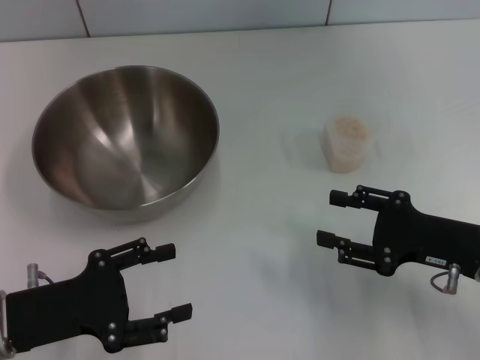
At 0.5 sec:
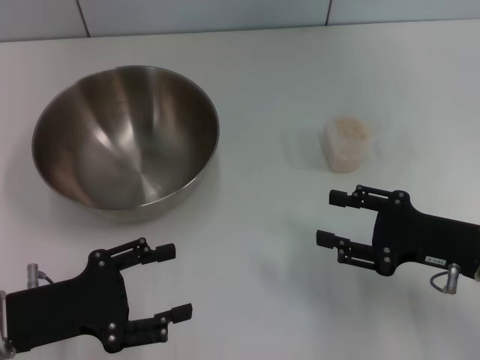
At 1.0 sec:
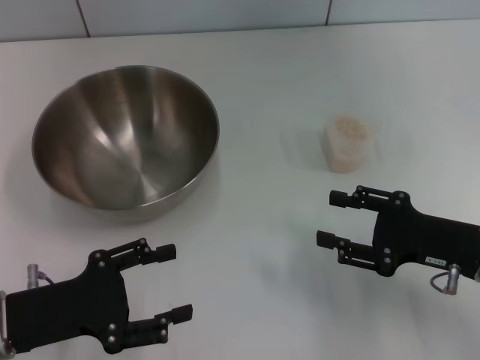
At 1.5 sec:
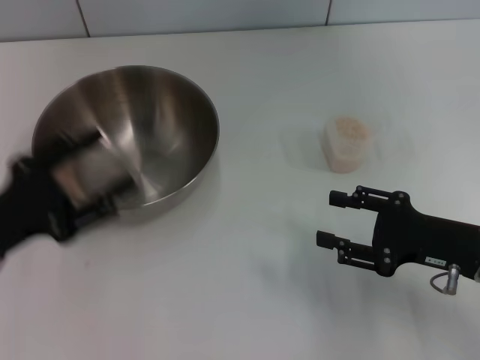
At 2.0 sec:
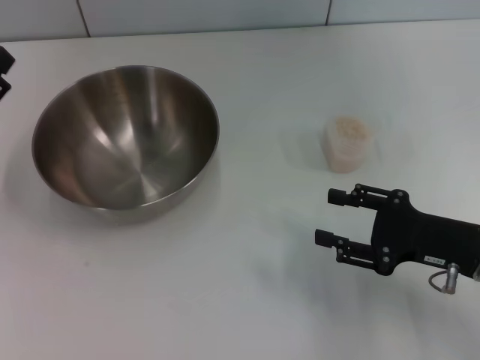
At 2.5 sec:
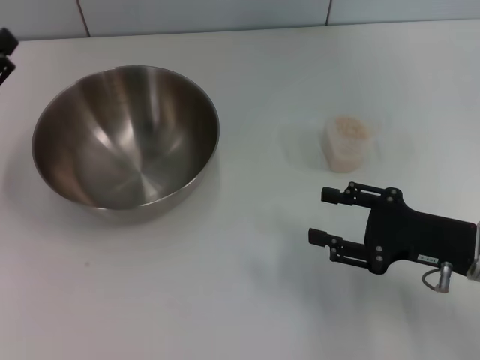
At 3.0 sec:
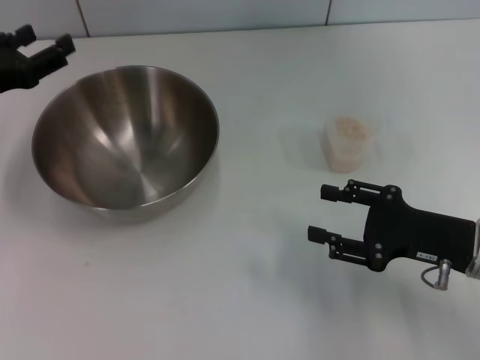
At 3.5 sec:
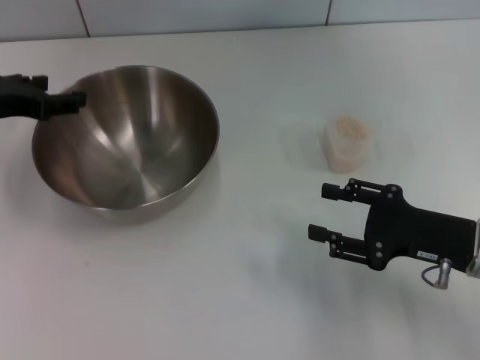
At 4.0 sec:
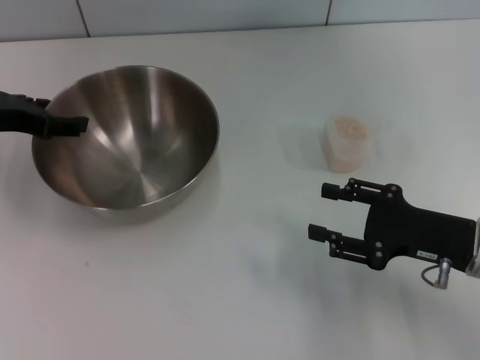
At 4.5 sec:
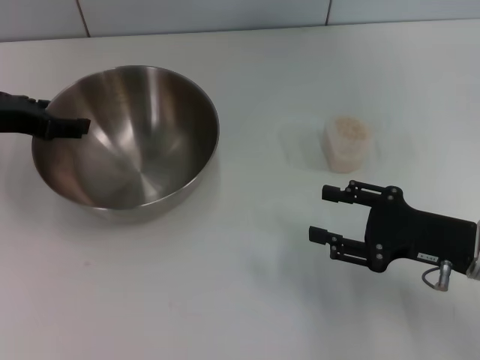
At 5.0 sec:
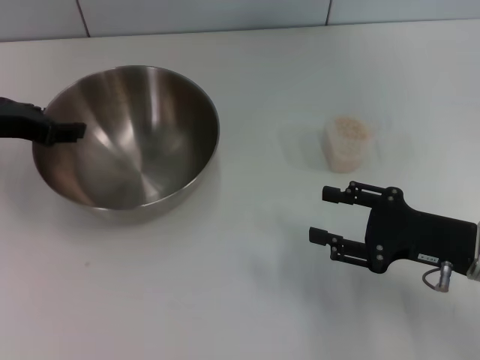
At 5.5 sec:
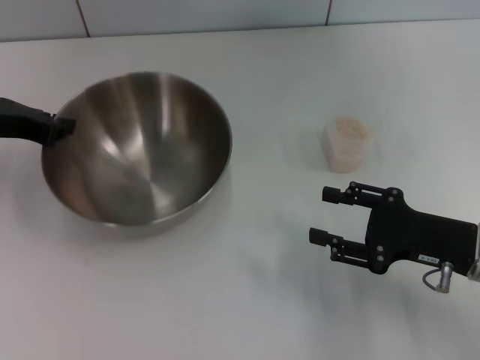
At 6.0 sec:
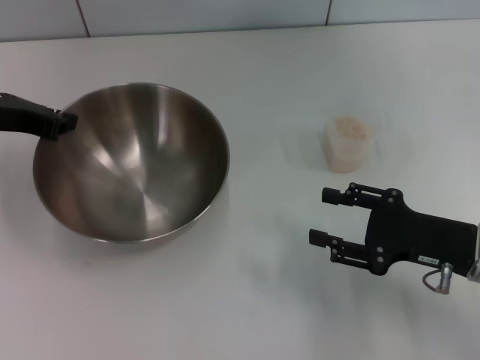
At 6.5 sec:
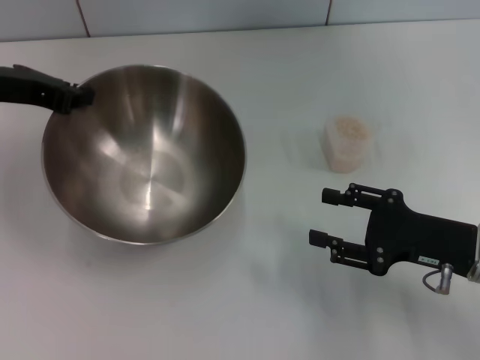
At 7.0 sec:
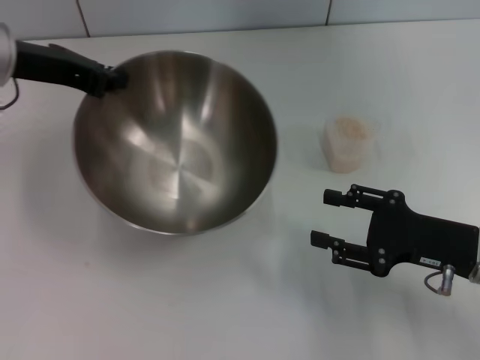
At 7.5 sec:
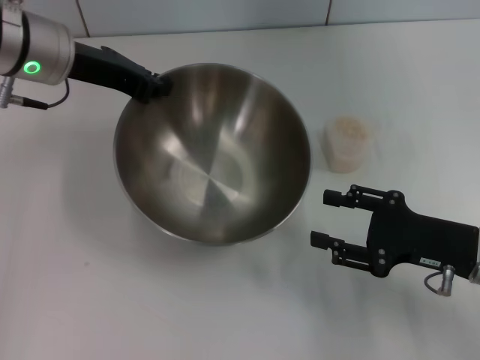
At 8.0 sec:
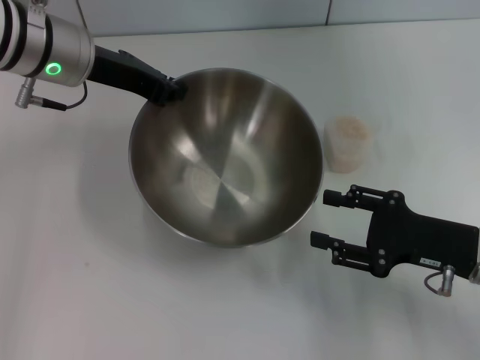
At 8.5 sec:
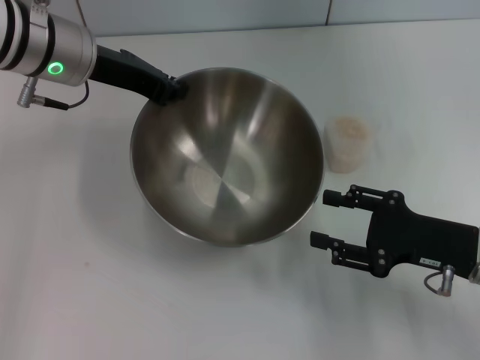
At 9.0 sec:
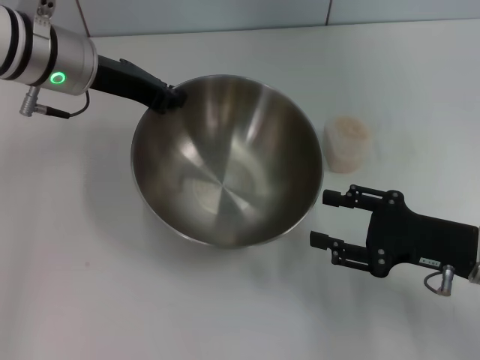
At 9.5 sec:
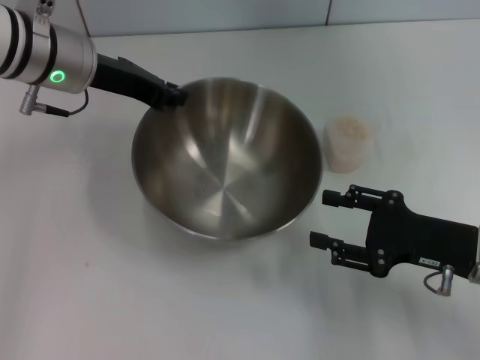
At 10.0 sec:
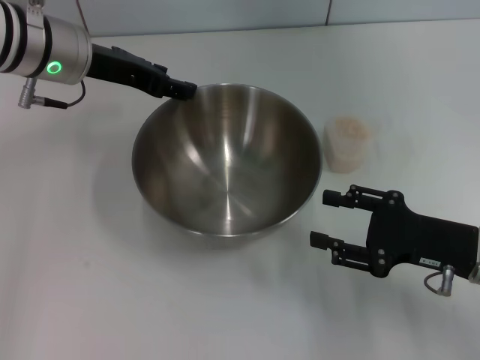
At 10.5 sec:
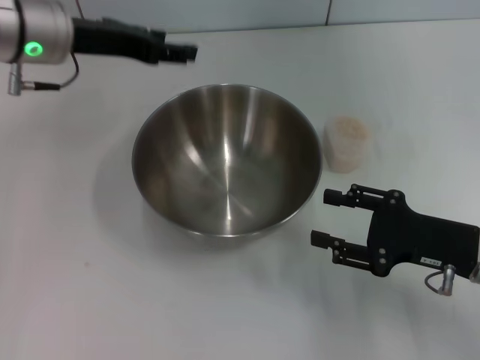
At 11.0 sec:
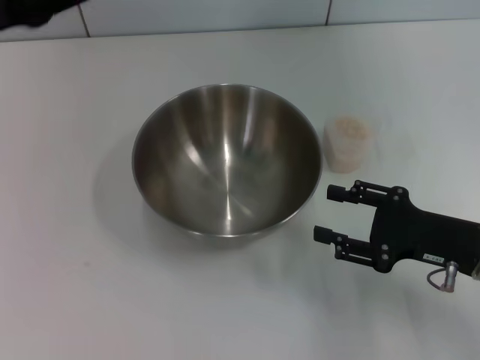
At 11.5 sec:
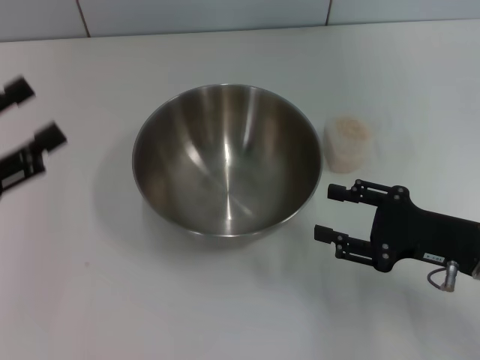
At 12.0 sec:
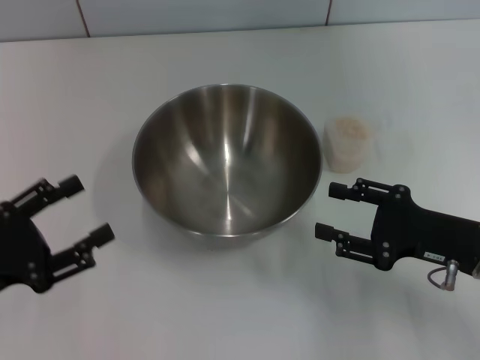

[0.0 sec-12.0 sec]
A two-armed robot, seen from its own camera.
Task of the whole recording: Place the bowl in the middle of the table with one hand and pour the rice from the grain cup into it with the other hand.
Step, 0.0 sec to 6.0 sec: Pick up the bowl with the left gripper.
Step, 6.5 sec to 10.0 sec: Place the bowl in the center of view with the left gripper.
0.0 sec to 2.0 sec: The left gripper moves to the left and forward, some 10 cm.
2.0 sec to 4.0 sec: The left gripper goes about 15 cm forward and upward.
4.0 sec to 6.0 sec: The left gripper closes its fingers.
6.0 sec to 8.0 sec: The left gripper travels to the right by roughly 10 cm.
8.0 sec to 10.0 sec: The left gripper opens up.
10.0 sec to 12.0 sec: The left gripper goes approximately 30 cm backward, to the left and downward, and opens up.

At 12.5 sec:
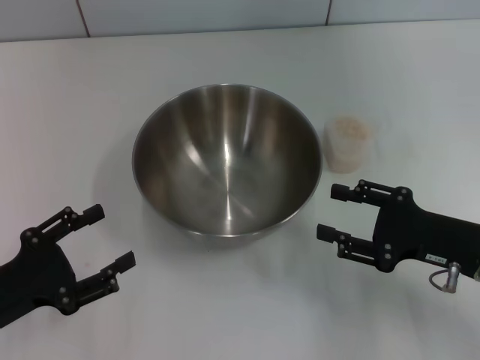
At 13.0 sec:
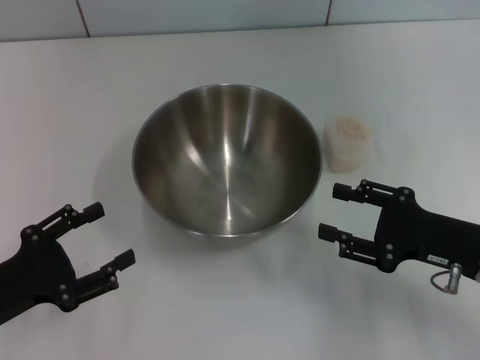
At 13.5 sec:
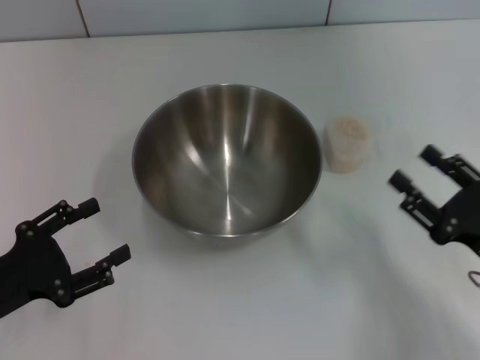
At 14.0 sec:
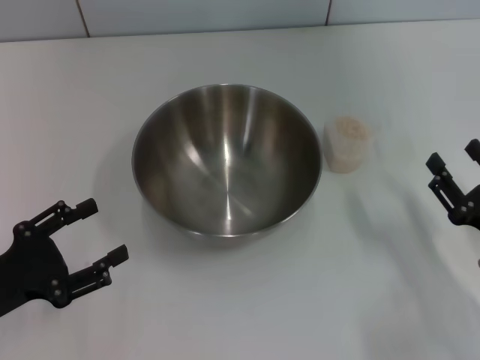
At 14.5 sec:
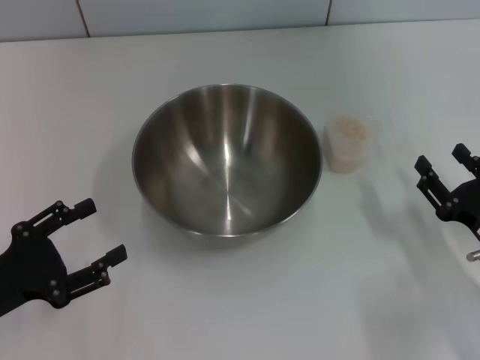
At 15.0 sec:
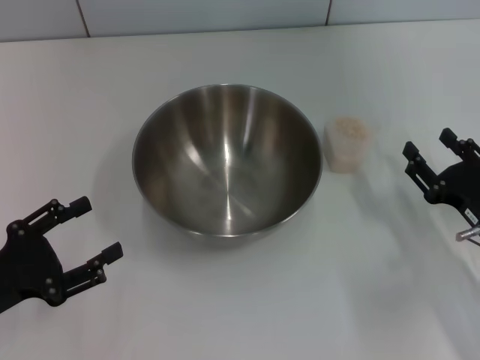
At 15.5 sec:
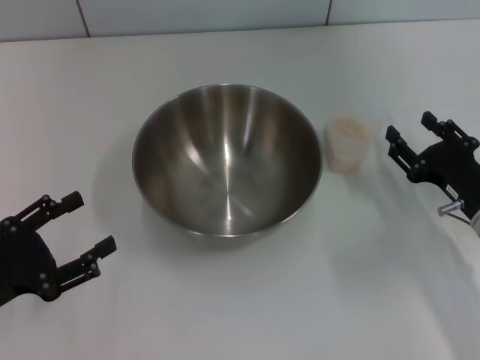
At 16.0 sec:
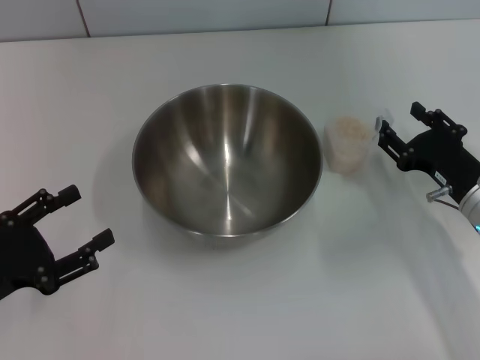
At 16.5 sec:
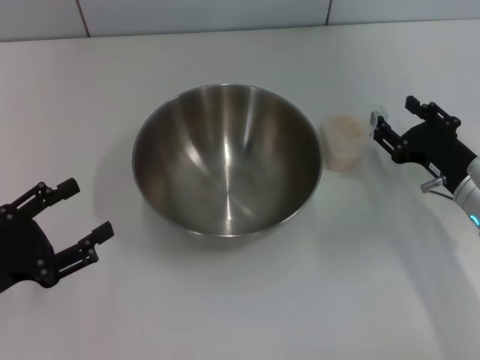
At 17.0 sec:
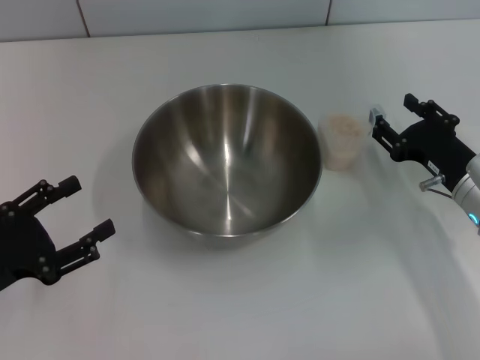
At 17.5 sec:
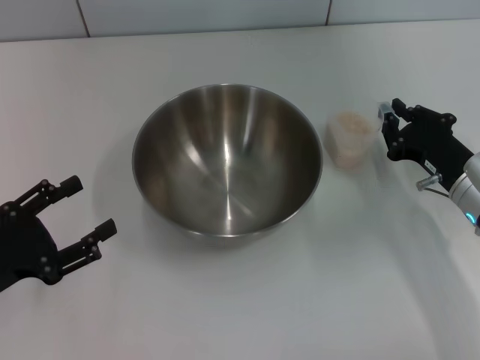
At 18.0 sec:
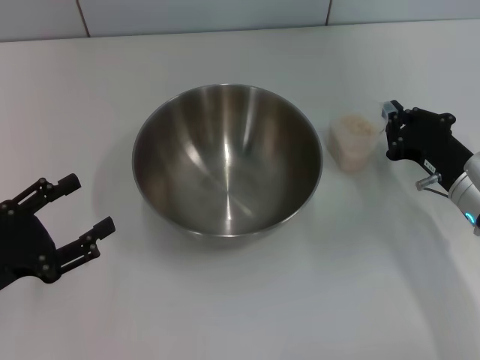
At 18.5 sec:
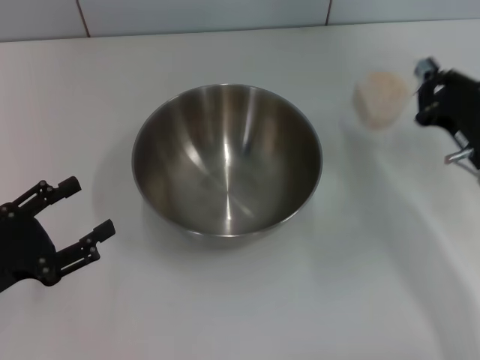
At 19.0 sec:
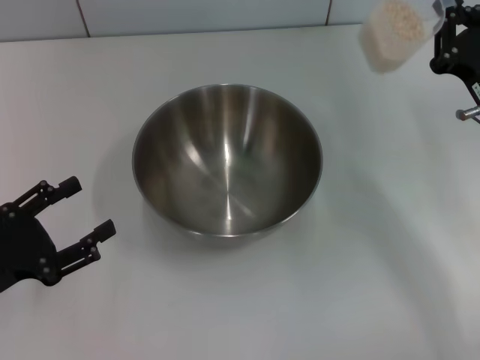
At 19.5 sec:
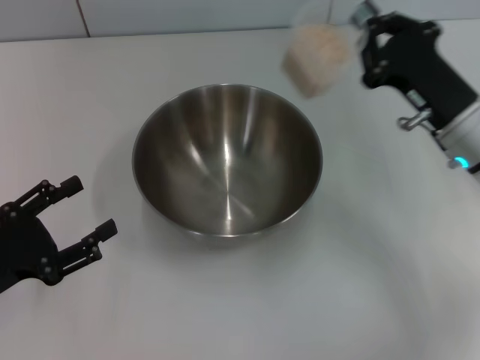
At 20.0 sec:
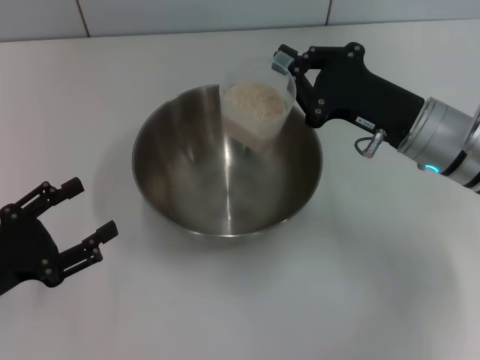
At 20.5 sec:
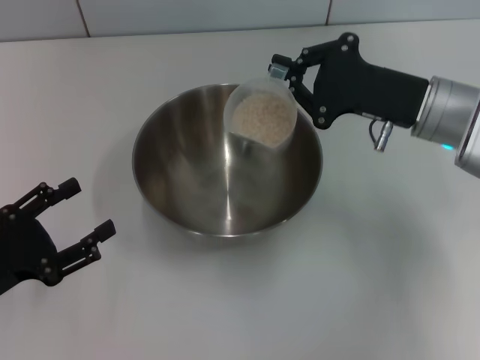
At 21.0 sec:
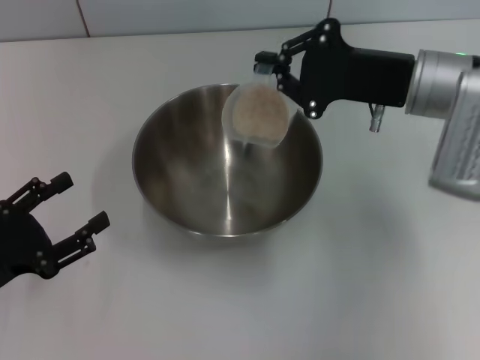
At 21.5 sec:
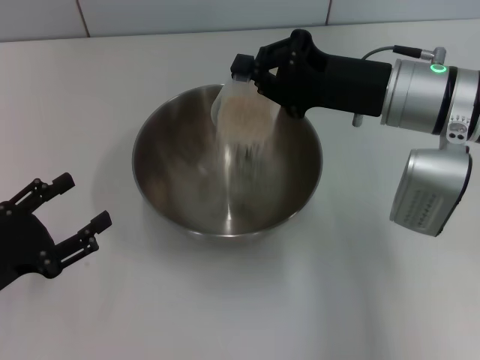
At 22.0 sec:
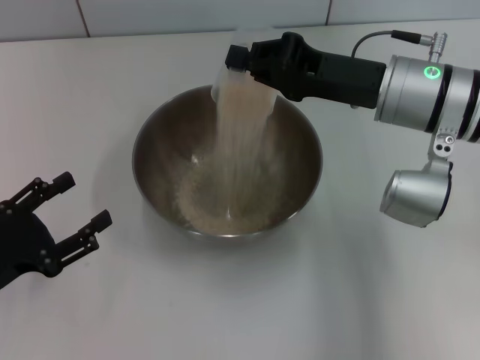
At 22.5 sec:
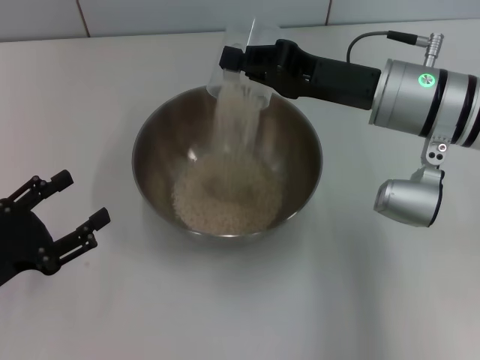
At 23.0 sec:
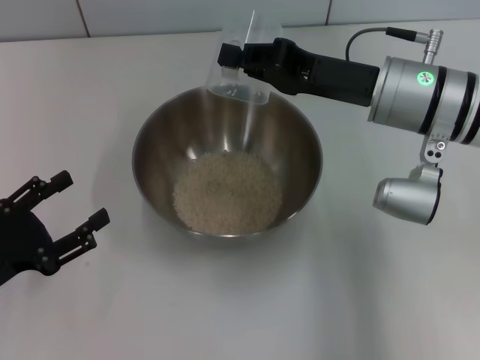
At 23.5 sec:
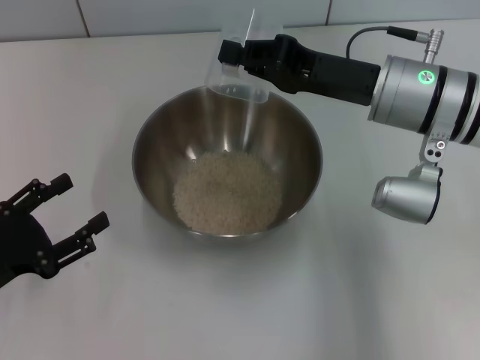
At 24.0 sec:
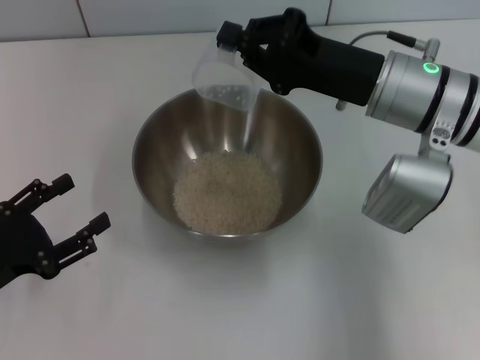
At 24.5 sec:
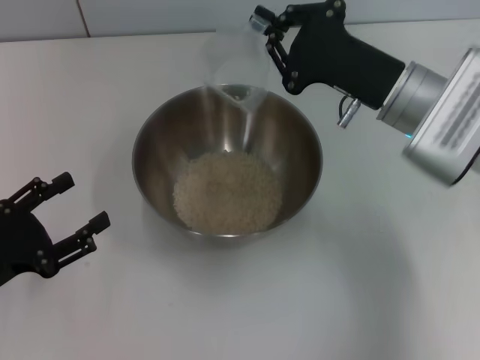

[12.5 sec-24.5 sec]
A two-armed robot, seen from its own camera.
Task of the whole recording: Place the bowl in the middle of the table with one hand and pour the rice from the grain cup into it with the other hand.
Step, 12.5 sec to 18.5 sec: Pick up the cup with rice in it with the right gripper.
12.5 sec to 14.5 sec: The right gripper ends up some 5 cm from where it was.
14.5 sec to 16.5 sec: The right gripper travels forward by some 10 cm.
16.5 sec to 18.5 sec: The right gripper closes up.
18.5 sec to 20.5 sec: The right gripper shifts approximately 10 cm upward, to the left and forward.
20.5 sec to 22.5 sec: The right gripper moves some 5 cm.

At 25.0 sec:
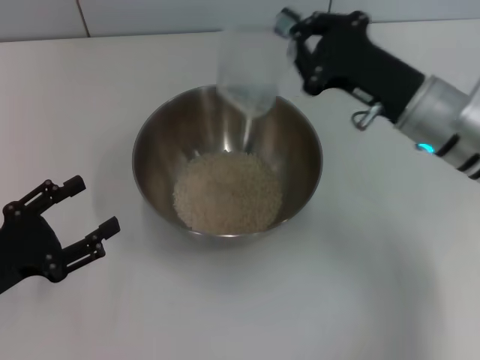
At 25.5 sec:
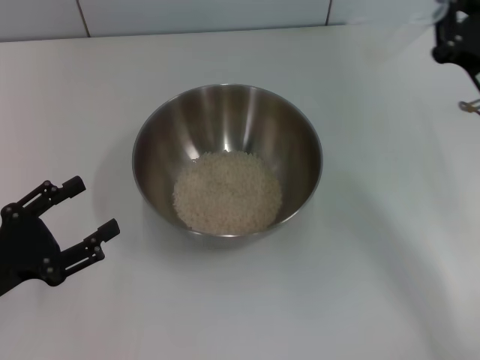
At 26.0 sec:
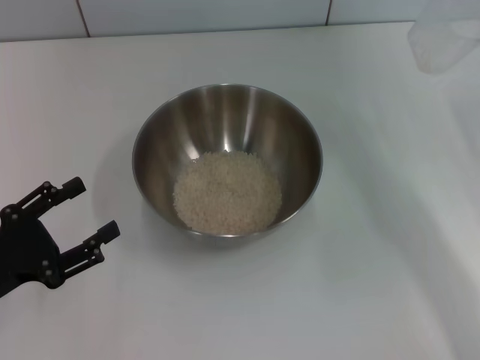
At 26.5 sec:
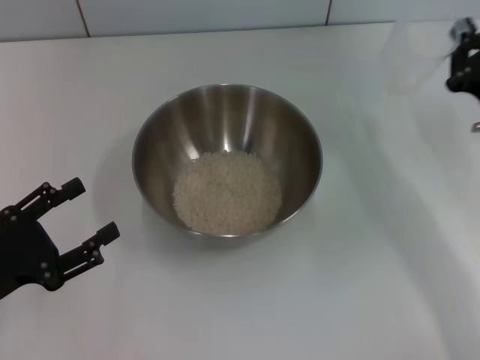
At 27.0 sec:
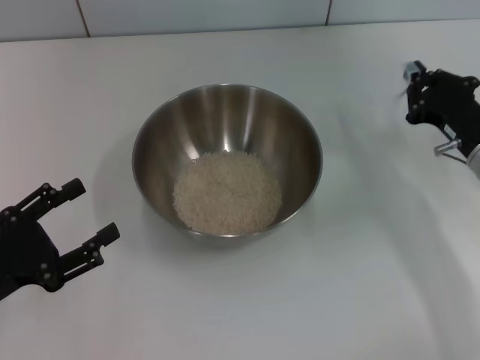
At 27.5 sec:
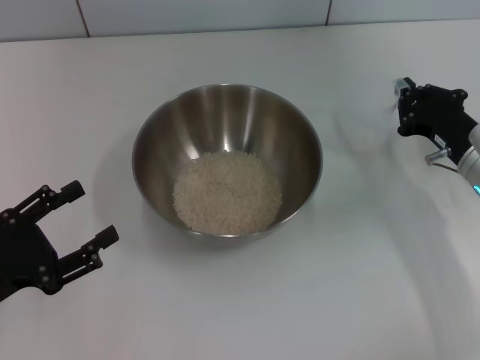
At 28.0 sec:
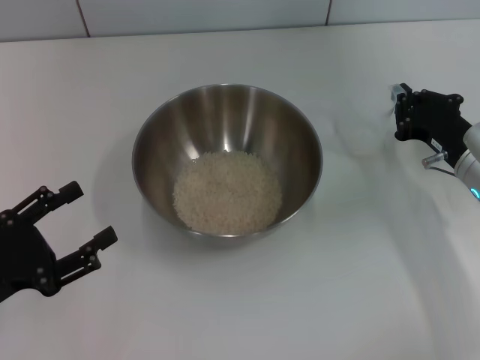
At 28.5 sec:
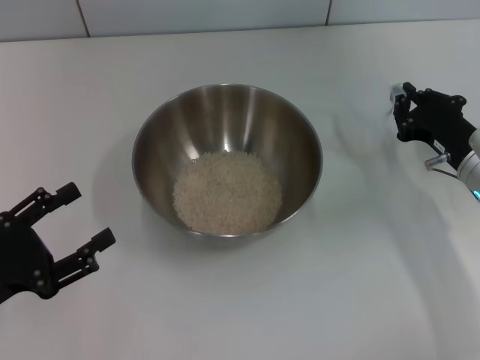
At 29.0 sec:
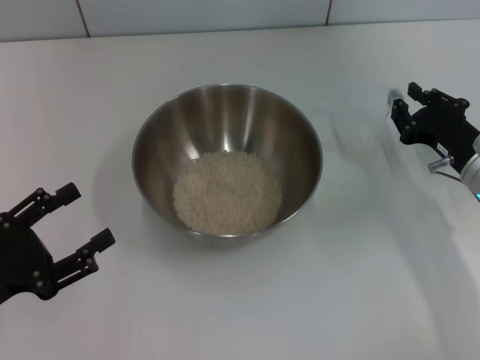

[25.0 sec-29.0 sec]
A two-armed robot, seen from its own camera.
Task of the whole recording: Place the bowl in the middle of the table with one hand and pour the rice from the grain cup into it with the other hand.
25.0 sec to 27.0 sec: The right gripper heads to the right and downward, covering roughly 10 cm.
27.0 sec to 29.0 sec: The grippers make only small movements.
